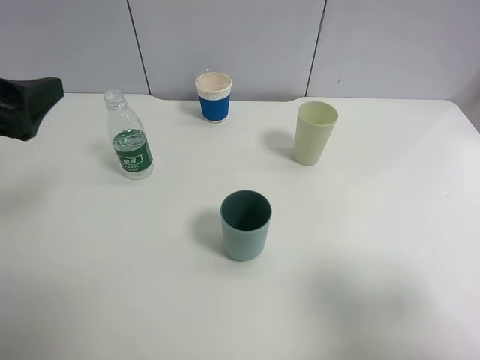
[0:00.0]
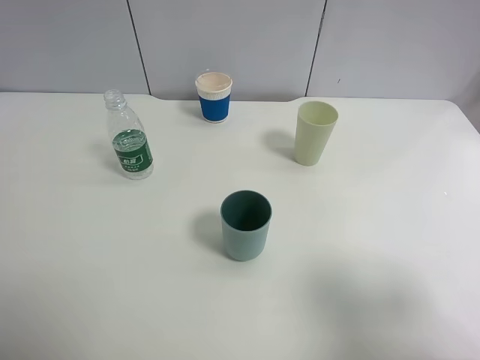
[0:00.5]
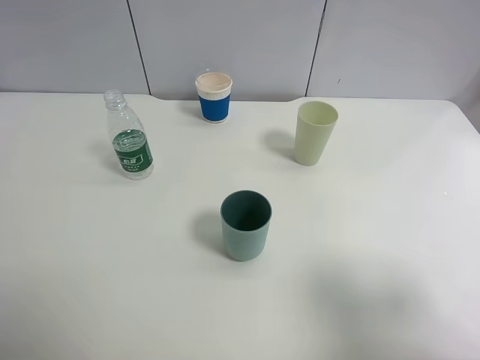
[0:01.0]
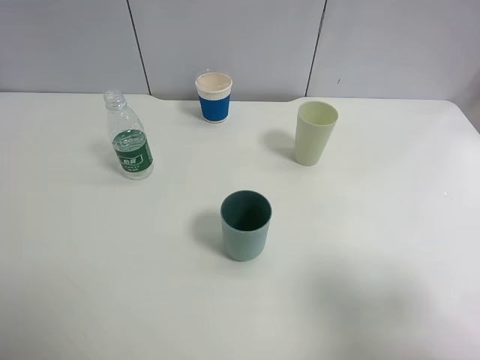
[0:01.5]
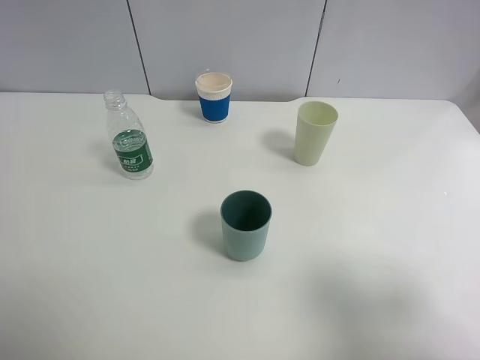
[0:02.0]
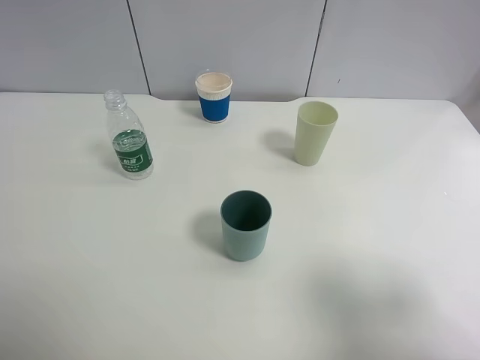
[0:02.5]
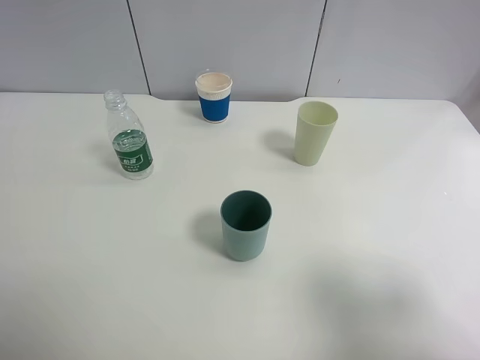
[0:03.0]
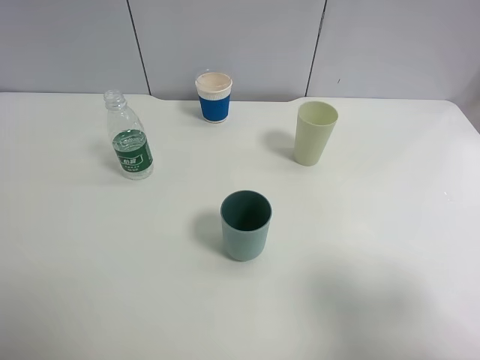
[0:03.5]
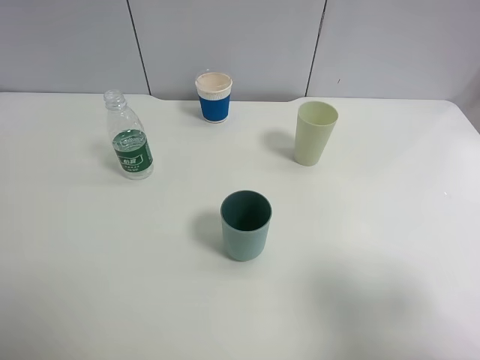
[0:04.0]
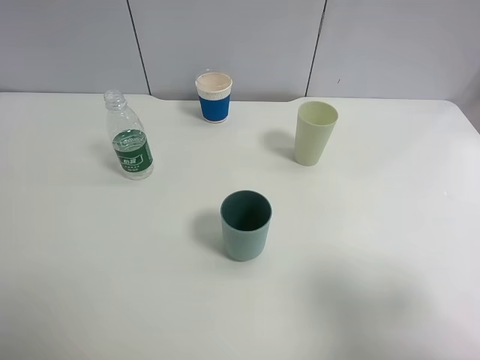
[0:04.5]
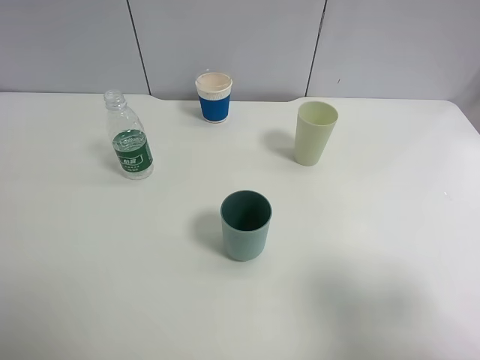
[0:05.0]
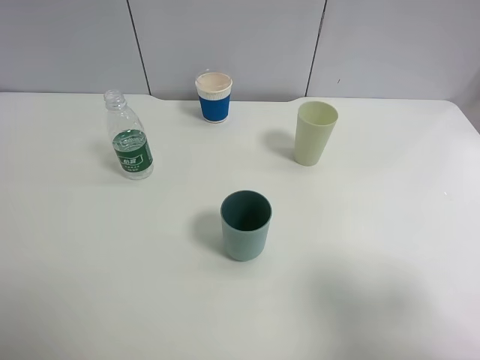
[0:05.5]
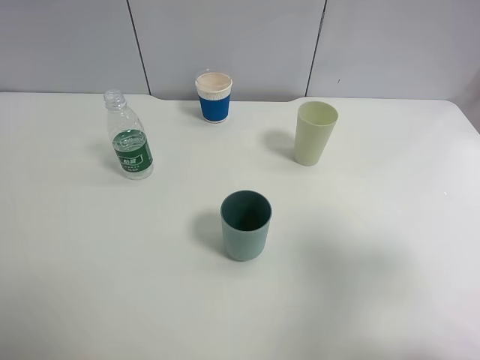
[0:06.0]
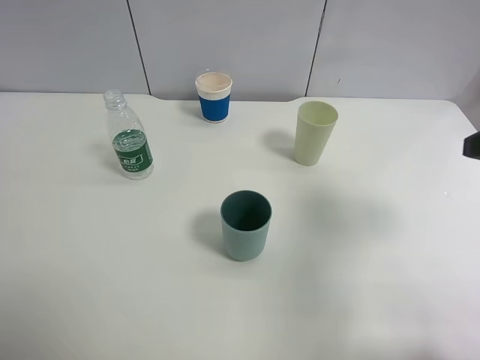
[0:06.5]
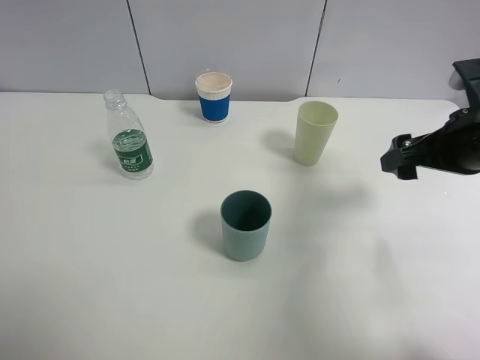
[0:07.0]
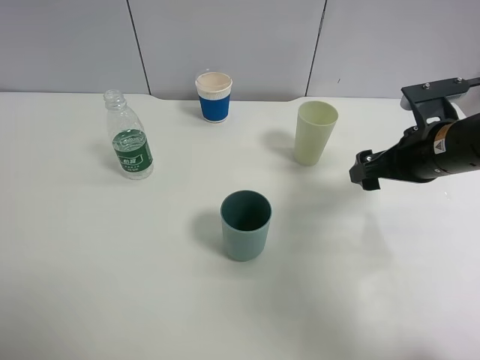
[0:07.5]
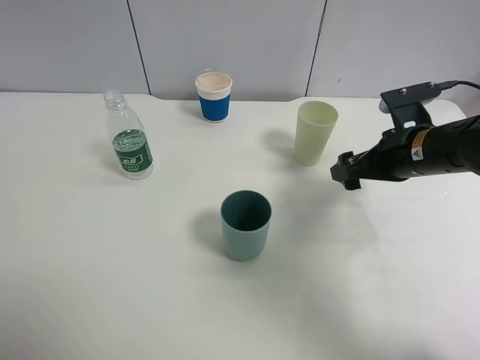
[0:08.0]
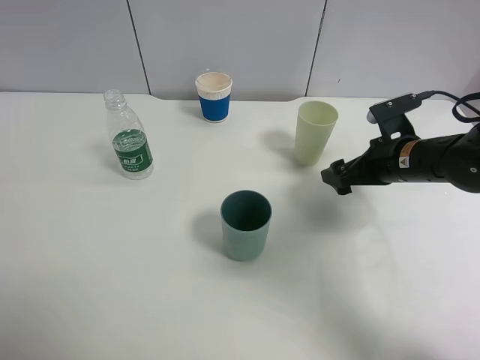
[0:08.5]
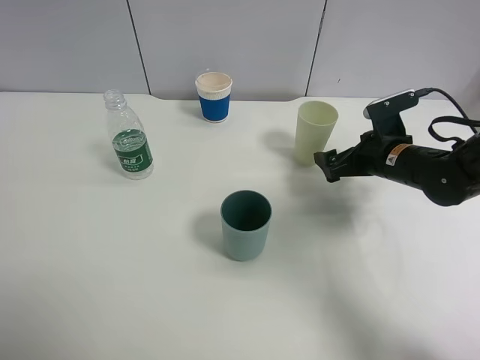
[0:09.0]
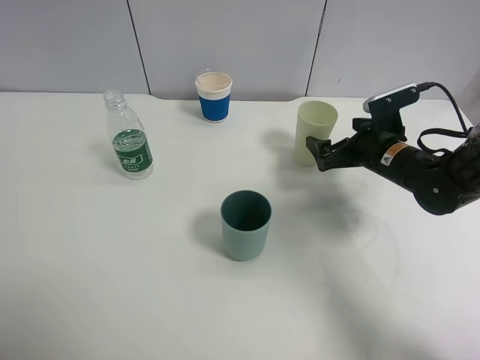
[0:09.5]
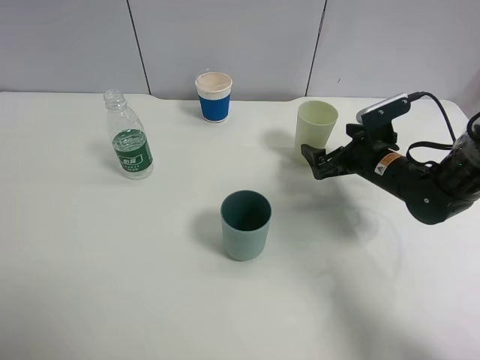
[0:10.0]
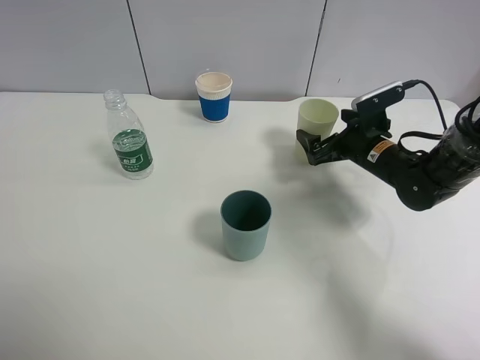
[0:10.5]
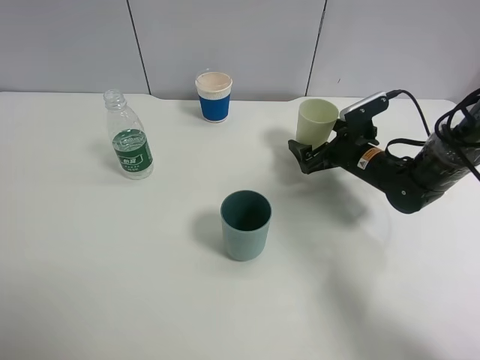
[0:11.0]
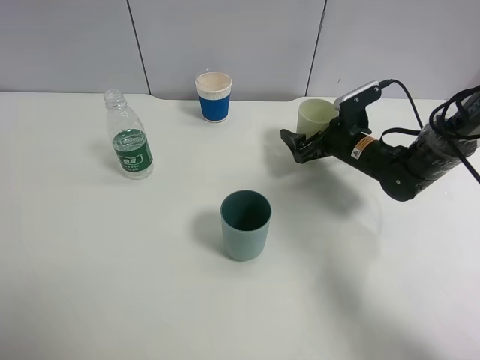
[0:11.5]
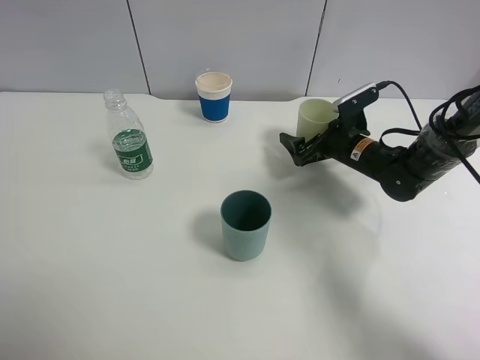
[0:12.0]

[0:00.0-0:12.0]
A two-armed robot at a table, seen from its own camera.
Task of the whole recording: use a clamp to hold the bottle of the drink, pour the beverage into a random cup, then clamp the cup containing the drink and pour the drink into another random cup.
0:00.0 to 0:02.0: The left gripper goes about 15 cm backward.
0:02.0 to 0:04.0: Neither gripper changes place.
0:04.0 to 0:06.0: The right gripper moves forward, about 5 cm.
0:06.0 to 0:08.0: The right gripper goes some 25 cm forward and downward.
0:08.0 to 0:10.0: The right gripper shifts about 5 cm downward.
0:10.0 to 0:12.0: The right gripper heads forward, covering approximately 5 cm.

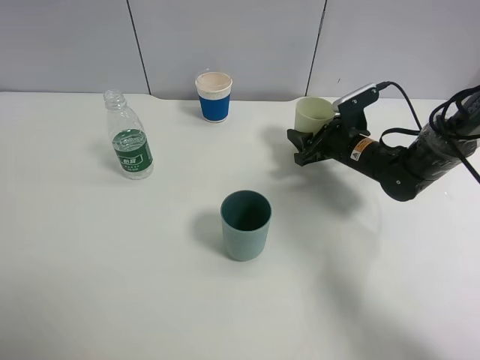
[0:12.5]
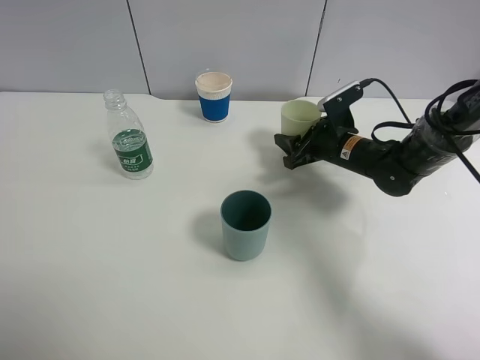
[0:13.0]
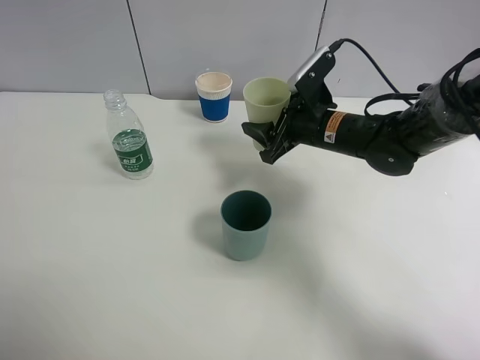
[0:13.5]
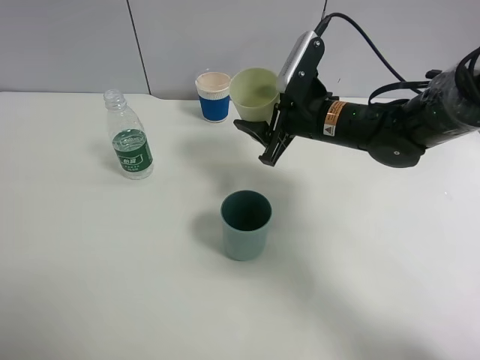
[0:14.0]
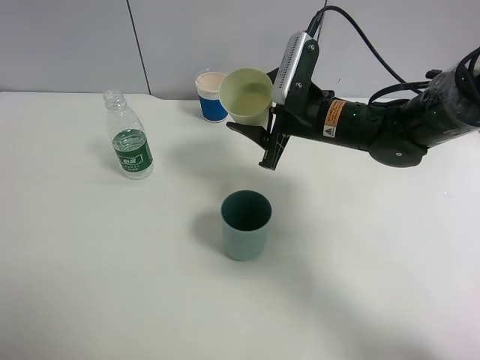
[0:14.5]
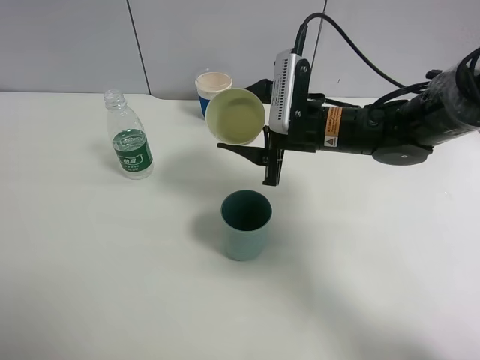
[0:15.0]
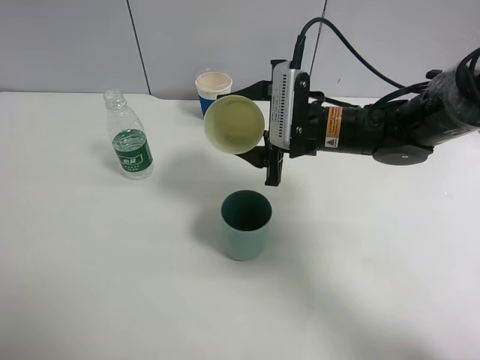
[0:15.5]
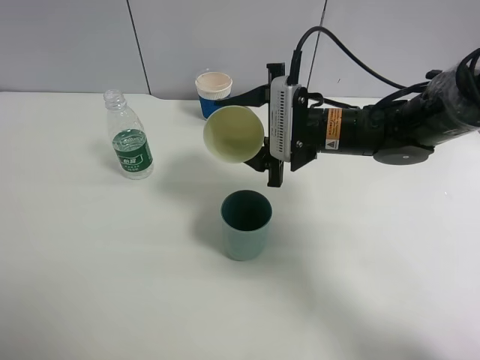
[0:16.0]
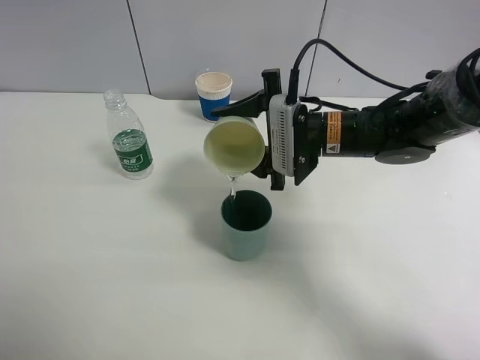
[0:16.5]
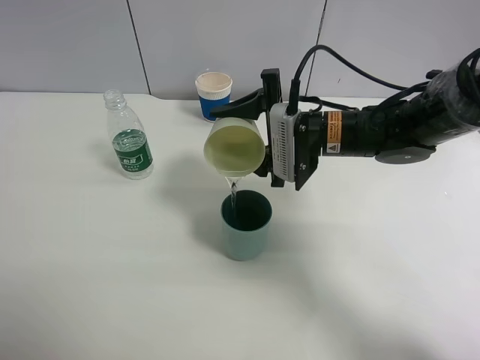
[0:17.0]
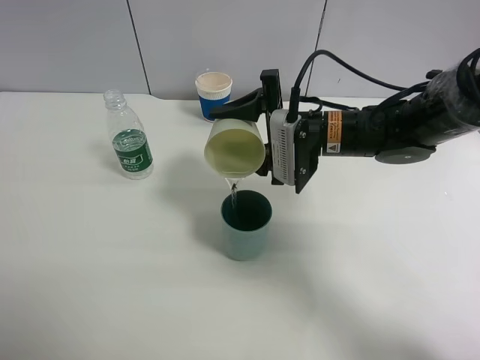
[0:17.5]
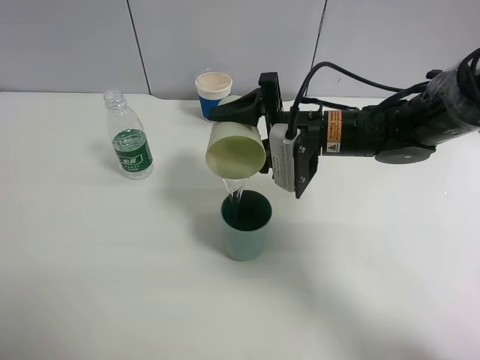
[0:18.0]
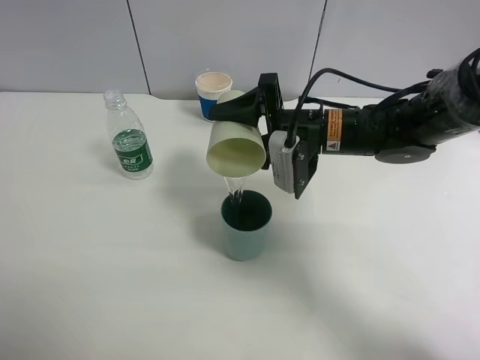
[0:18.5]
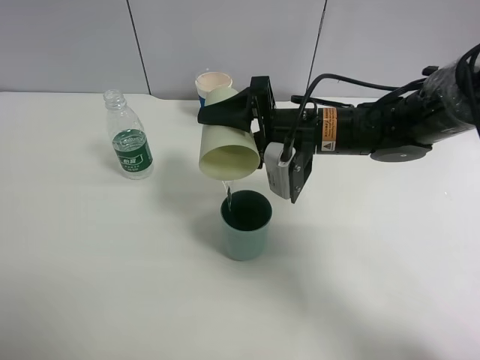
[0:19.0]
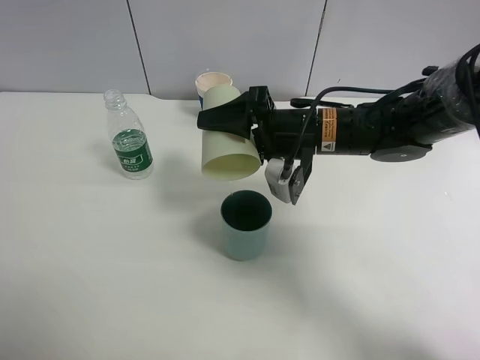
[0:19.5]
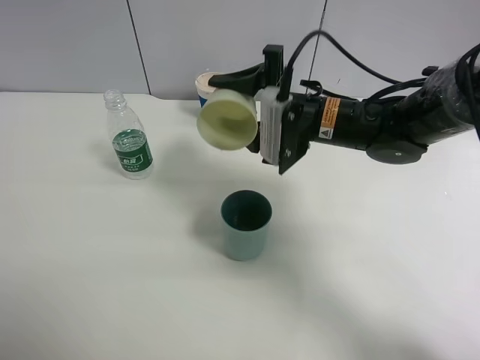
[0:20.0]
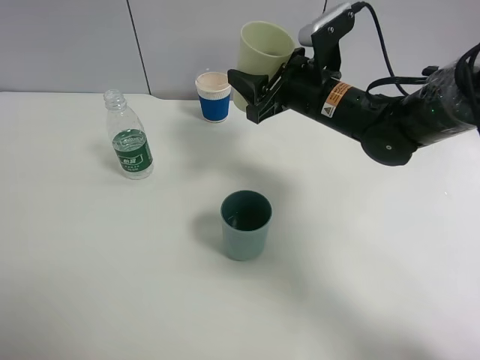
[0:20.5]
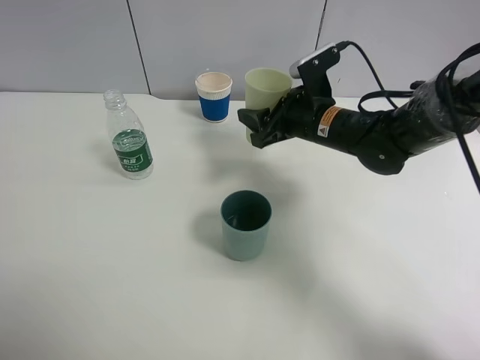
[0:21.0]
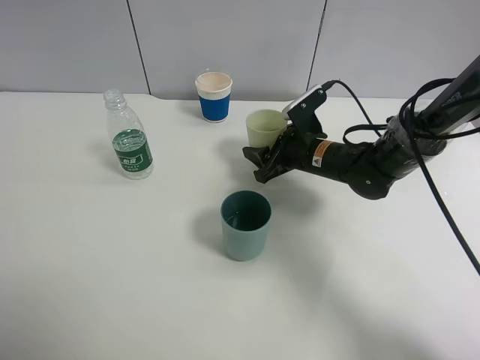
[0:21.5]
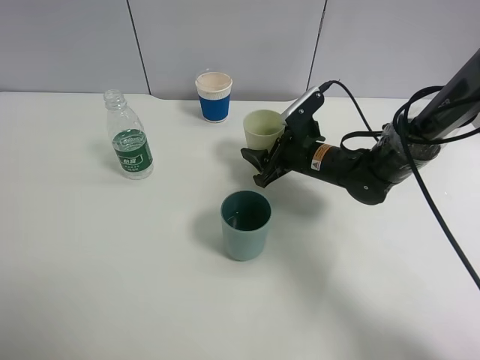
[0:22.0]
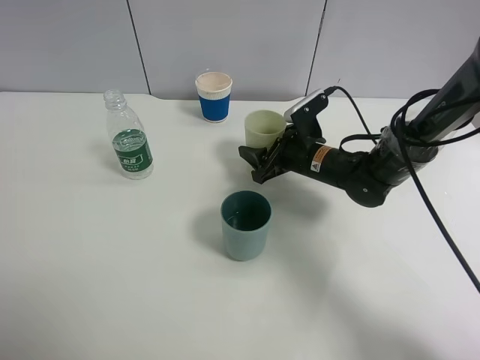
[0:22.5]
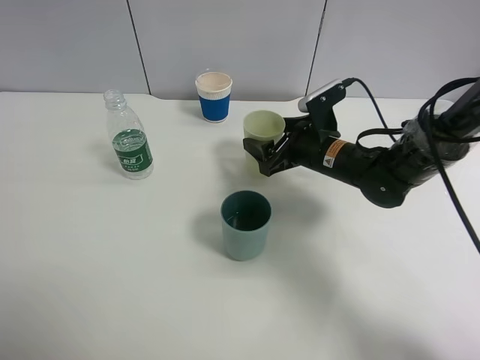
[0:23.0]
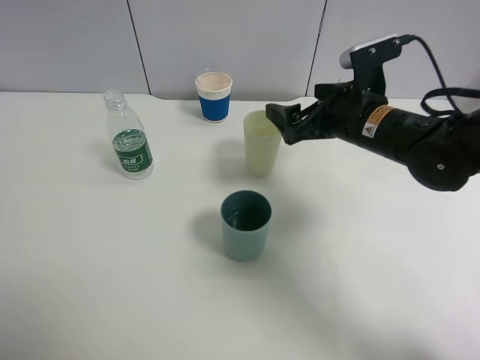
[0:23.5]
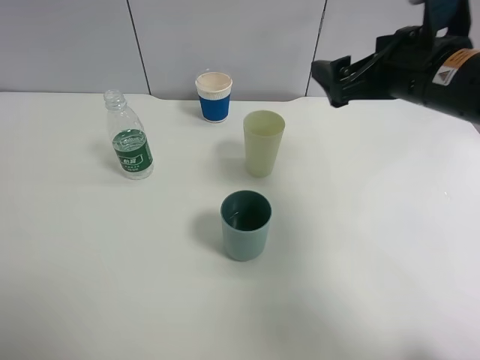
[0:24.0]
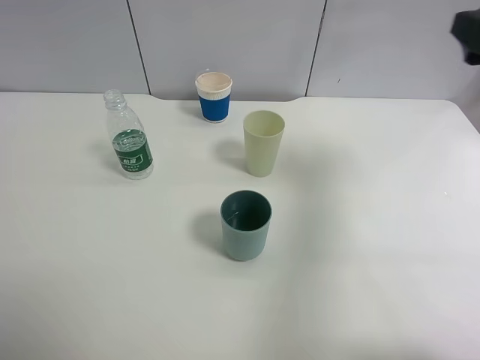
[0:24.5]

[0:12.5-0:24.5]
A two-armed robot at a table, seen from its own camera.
Task of the whole recording: use a clamp to hold the bottle of the drink, pour the beverage into a random cup, then clamp the cup containing the drink and pour the drink into another random cup.
Step, 0:13.5 to 0:20.0: Pour water into the blue plastic cup with right gripper.
Step, 0:20.5 to 0:23.5: Place the green plastic cup on the table with right gripper.
0:12.5 to 0:14.5: The right gripper goes about 15 cm upward and to the left.
0:20.5 to 0:22.5: The right gripper goes some 10 cm downward.
0:22.5 to 0:24.5: The right gripper goes approximately 35 cm upward, to the right and backward, and opens up.

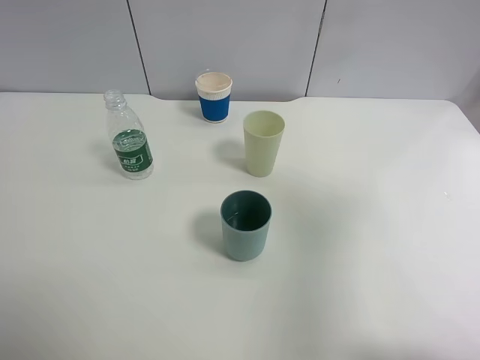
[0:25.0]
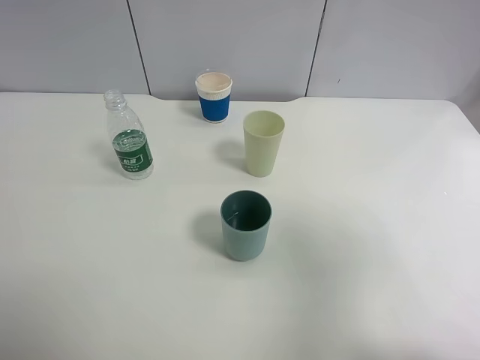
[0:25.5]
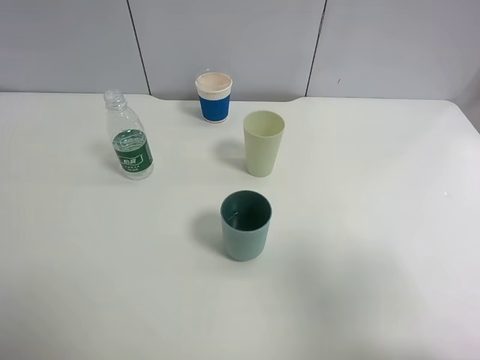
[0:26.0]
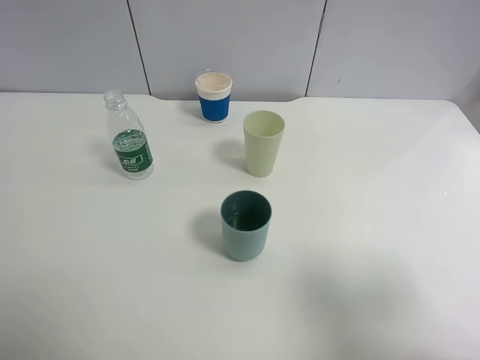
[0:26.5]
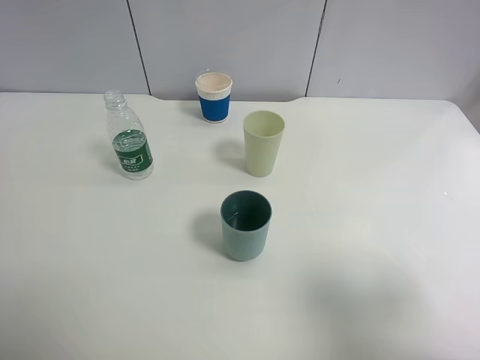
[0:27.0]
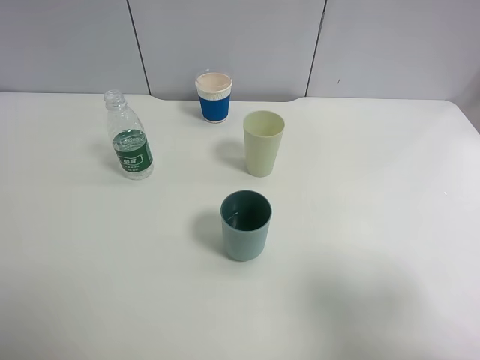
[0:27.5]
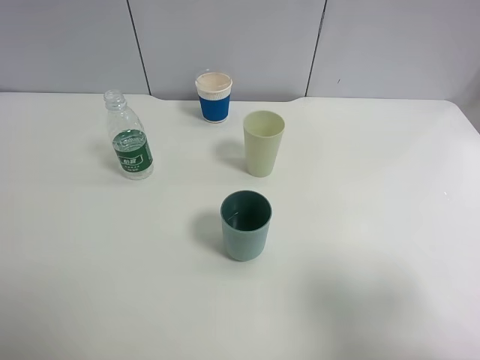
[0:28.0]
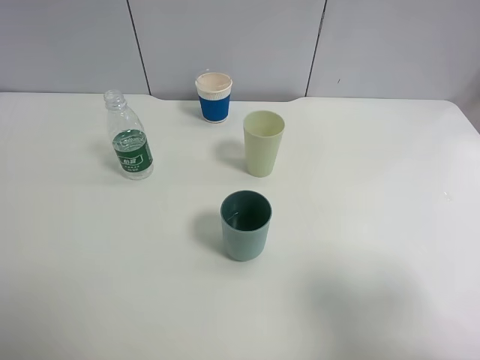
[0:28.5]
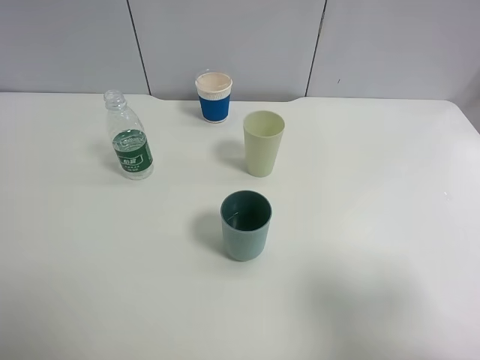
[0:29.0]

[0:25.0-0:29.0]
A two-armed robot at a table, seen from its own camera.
Task of the whole recording: use a clamp to hold the bottle of the drink, pour the beverage into a random cup, then clamp the cup containing the drink and pour the drink into another random cup.
0:25.0 to 0:27.0: The right gripper shifts some 15 cm backward and downward.
0:27.0 to 0:29.0: The two grippers keep their place.
